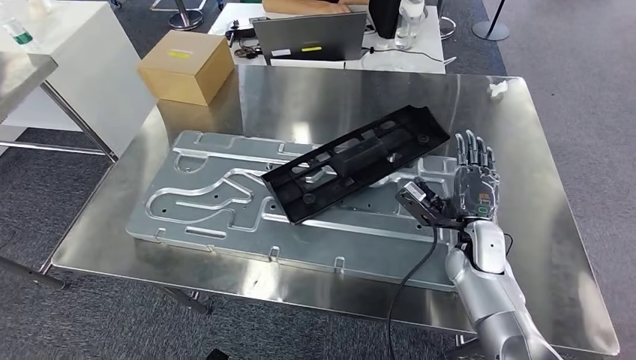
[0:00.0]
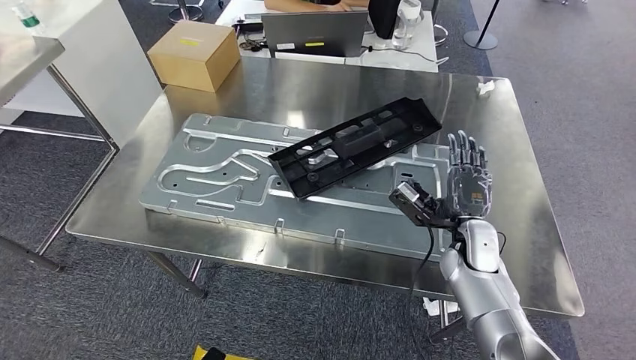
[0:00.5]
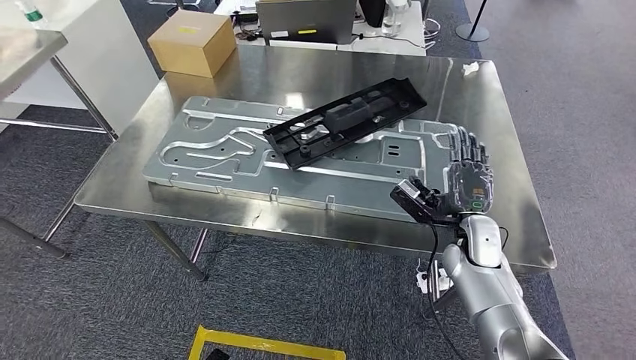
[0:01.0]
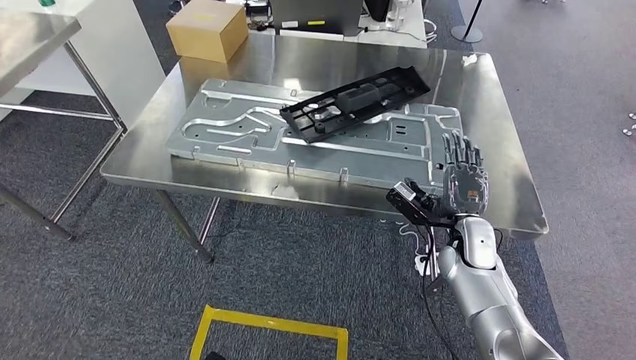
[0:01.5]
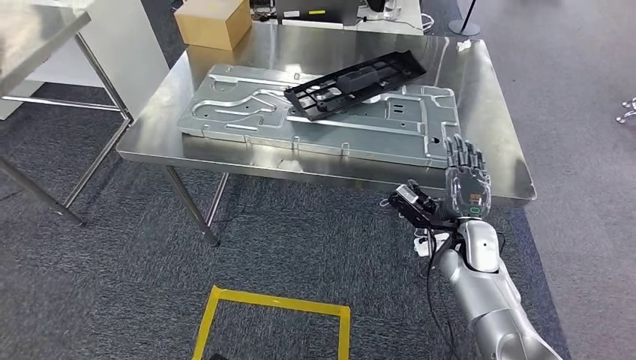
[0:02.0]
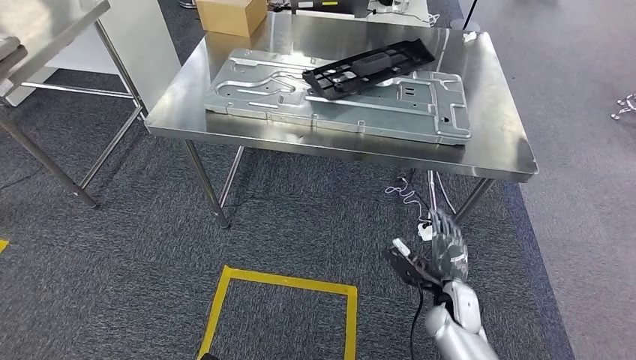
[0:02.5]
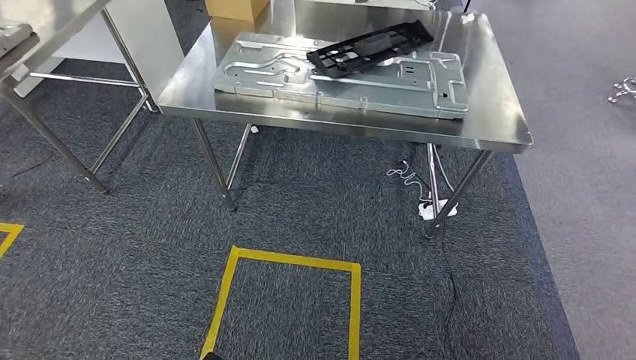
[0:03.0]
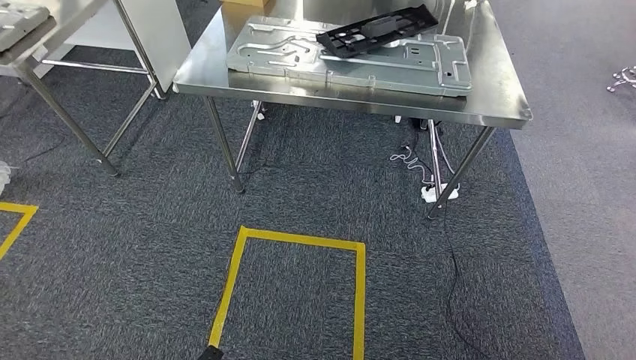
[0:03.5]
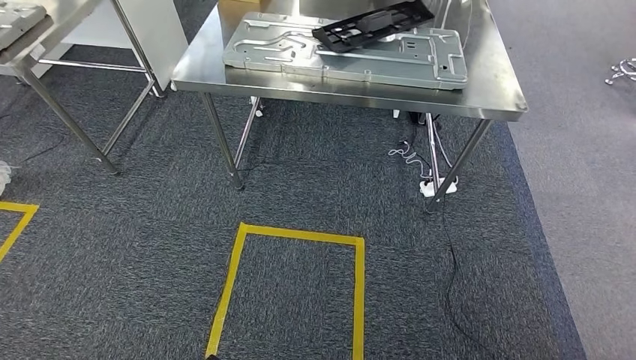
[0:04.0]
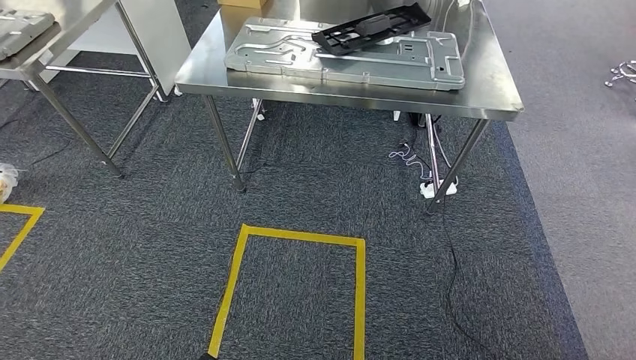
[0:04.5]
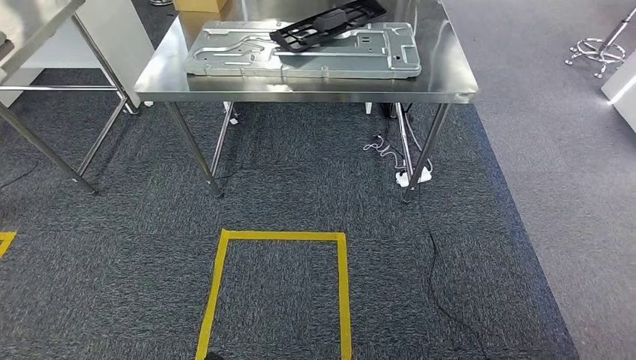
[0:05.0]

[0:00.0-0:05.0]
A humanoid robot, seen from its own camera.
Step, 0:00.0 to 0:05.0: Move to the initial position of the shelf.
